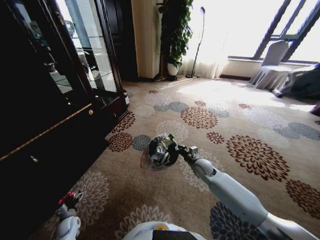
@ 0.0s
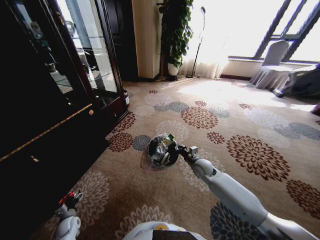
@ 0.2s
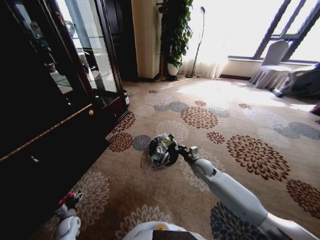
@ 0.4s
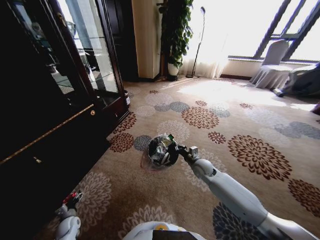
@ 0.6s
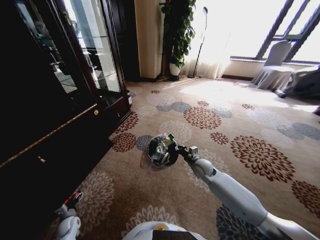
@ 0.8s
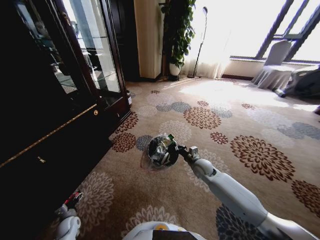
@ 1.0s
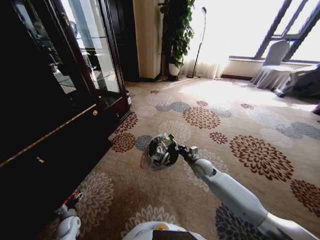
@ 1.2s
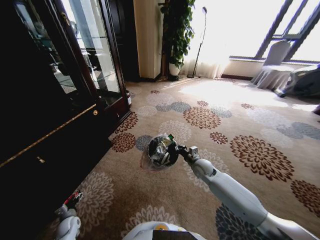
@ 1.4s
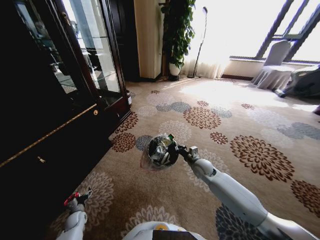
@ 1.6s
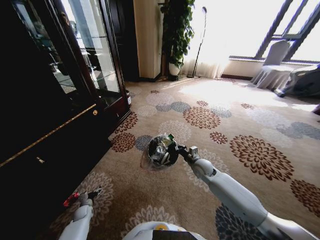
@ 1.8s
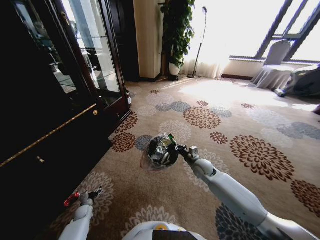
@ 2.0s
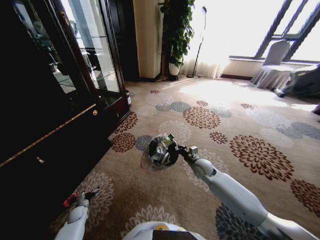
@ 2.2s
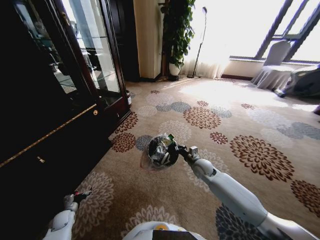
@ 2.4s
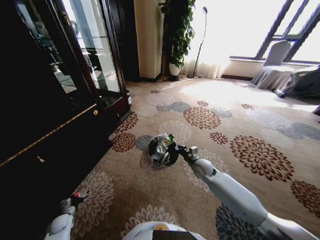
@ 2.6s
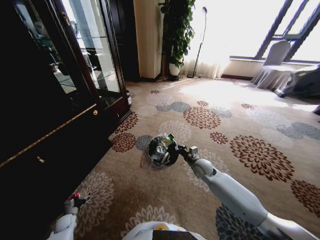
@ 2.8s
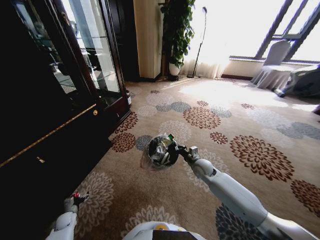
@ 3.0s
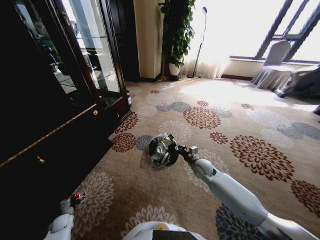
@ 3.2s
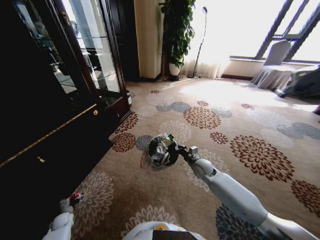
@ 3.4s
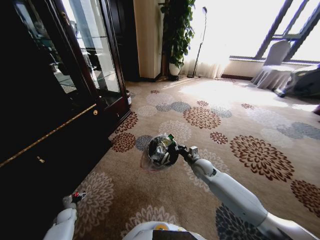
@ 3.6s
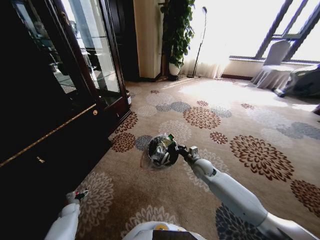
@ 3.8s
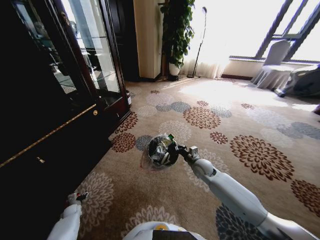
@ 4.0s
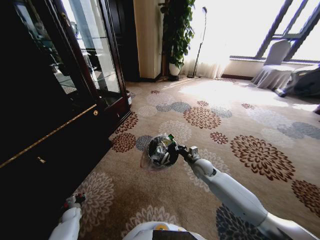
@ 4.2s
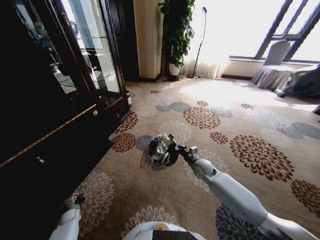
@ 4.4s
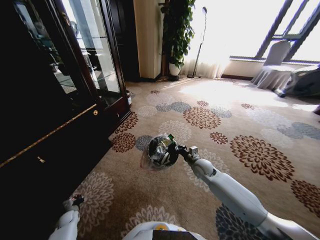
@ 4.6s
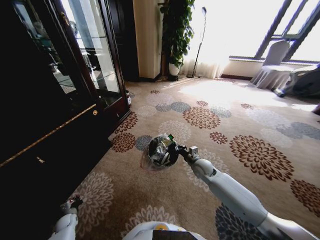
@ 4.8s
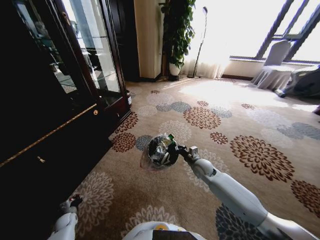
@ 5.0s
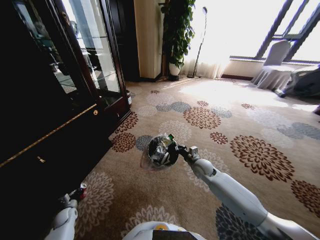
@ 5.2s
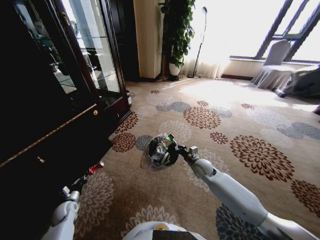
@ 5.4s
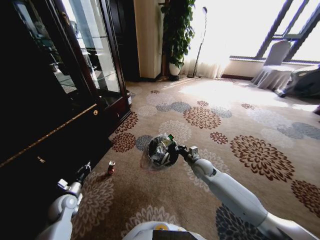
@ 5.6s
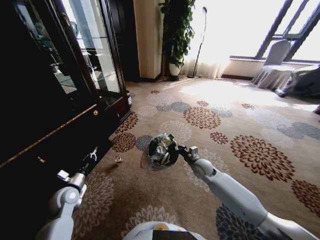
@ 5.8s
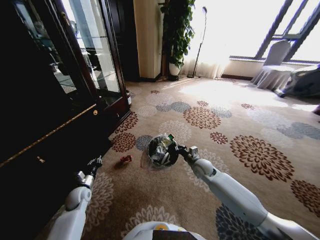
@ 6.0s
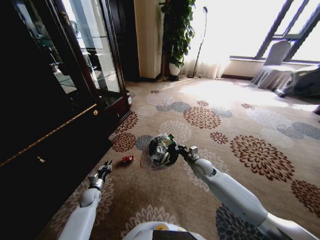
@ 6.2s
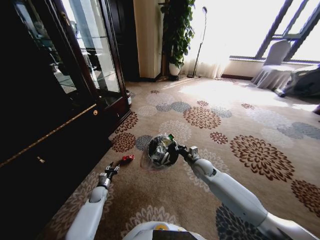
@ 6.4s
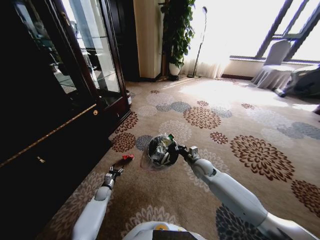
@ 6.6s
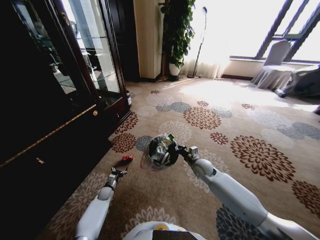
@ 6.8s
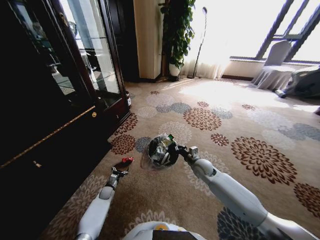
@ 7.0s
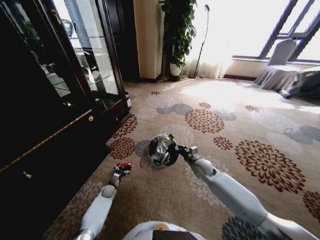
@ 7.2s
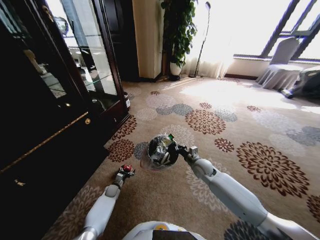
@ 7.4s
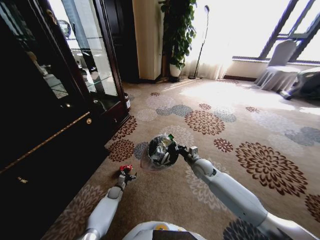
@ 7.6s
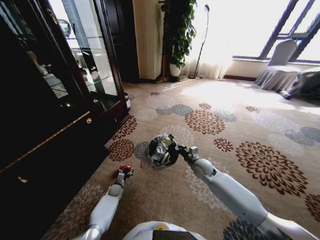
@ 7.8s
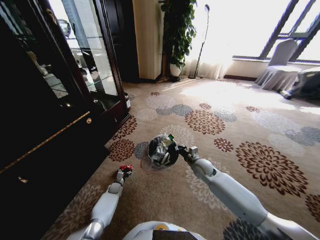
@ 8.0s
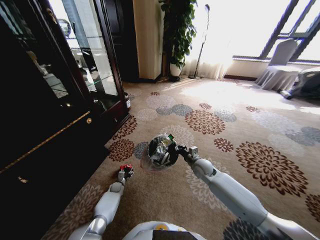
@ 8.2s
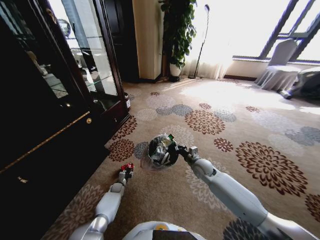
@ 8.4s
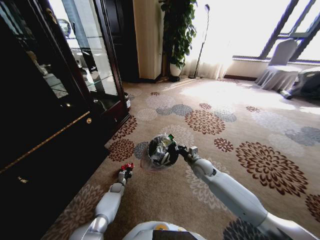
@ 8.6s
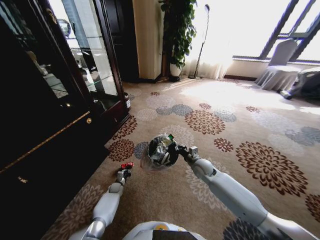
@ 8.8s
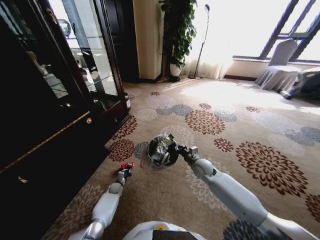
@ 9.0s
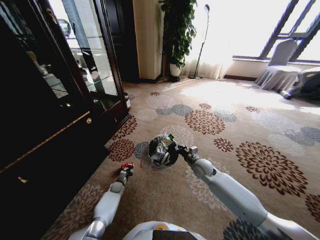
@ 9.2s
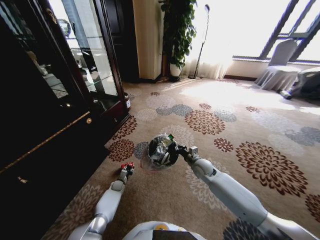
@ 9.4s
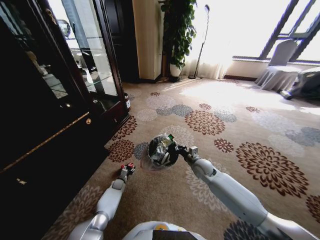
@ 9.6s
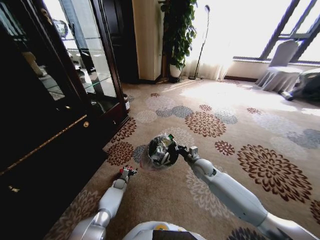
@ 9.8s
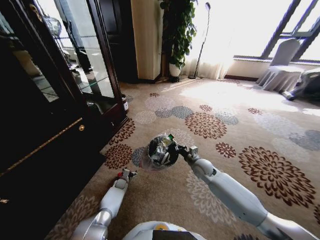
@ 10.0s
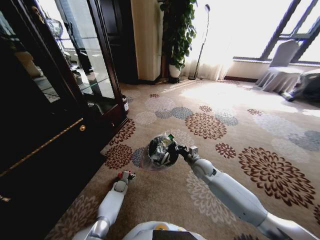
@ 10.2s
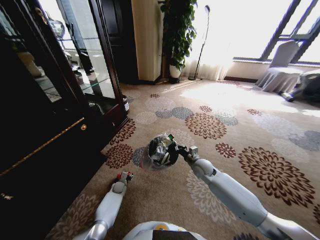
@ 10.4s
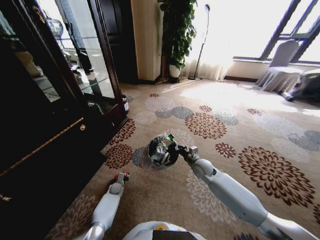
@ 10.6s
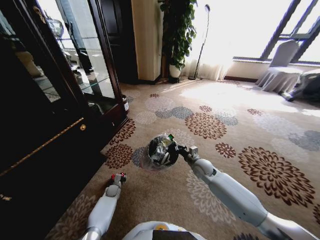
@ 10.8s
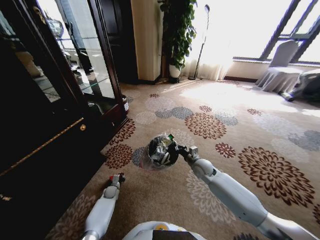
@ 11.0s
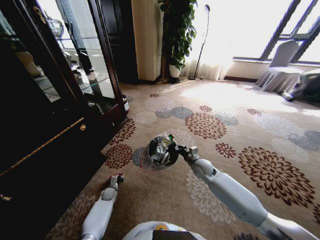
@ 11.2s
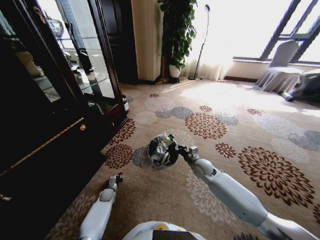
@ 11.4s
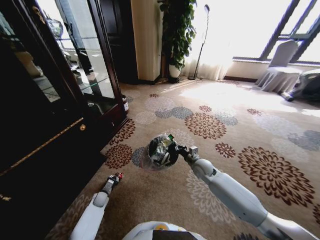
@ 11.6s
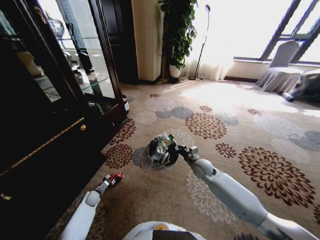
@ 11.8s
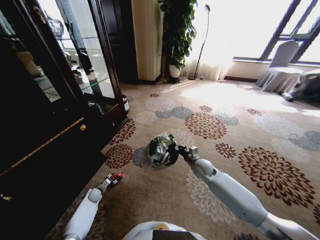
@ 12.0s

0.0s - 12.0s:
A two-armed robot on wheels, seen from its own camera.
Task of the whole recording: Pick up the trash from the ground and place it into the trash bin.
0.0s - 1.6s: The grippers move only a little.
3.0s - 4.4s: The left gripper closes up.
4.4s - 6.0s: The left gripper shifts some 20 cm upward and to the right.
6.0s - 7.6s: The left gripper travels downward and to the right by roughly 20 cm, and opens up.
7.6s - 9.0s: The left gripper closes up.
9.0s - 10.4s: The left gripper opens up.
10.4s - 12.0s: The left gripper shifts approximately 15 cm to the left, and closes and opens again.

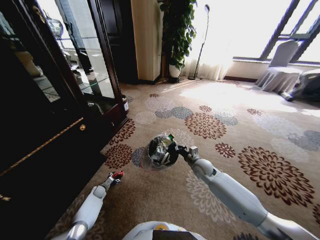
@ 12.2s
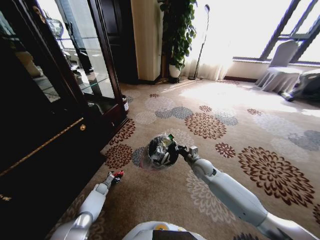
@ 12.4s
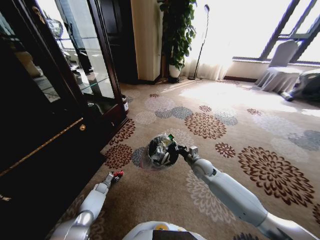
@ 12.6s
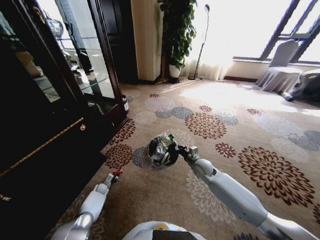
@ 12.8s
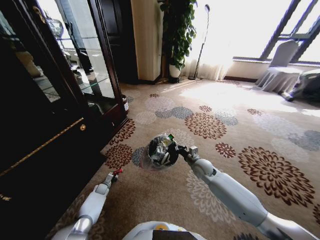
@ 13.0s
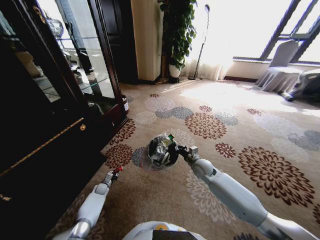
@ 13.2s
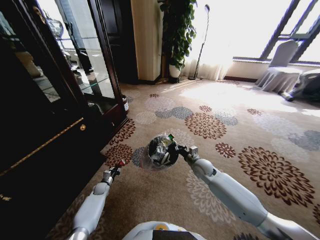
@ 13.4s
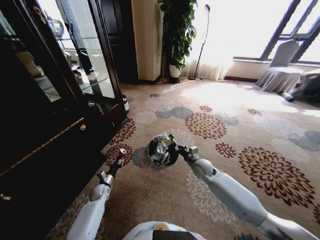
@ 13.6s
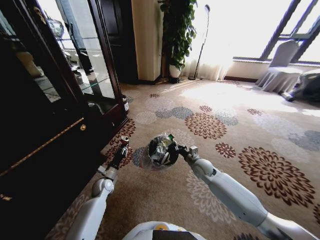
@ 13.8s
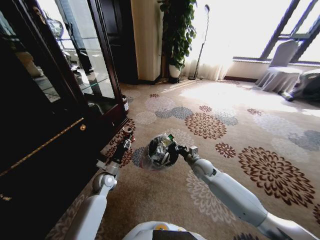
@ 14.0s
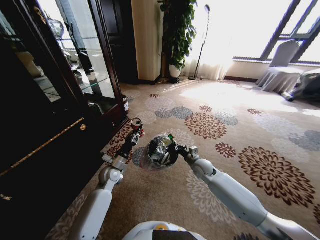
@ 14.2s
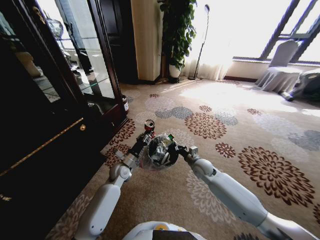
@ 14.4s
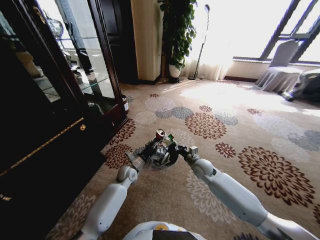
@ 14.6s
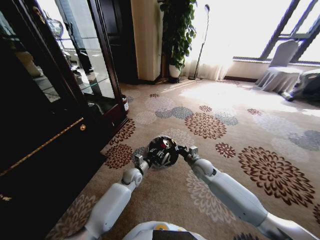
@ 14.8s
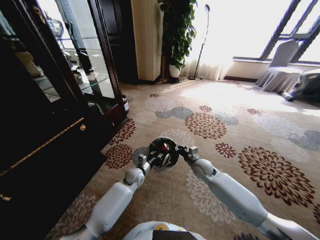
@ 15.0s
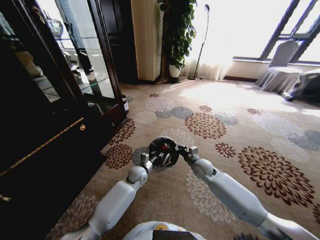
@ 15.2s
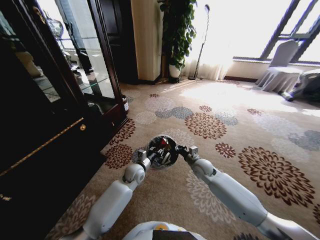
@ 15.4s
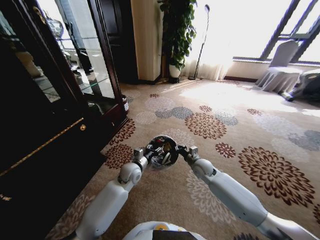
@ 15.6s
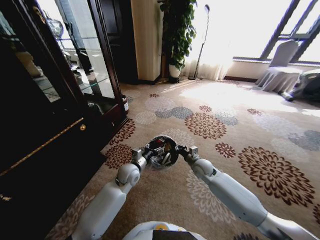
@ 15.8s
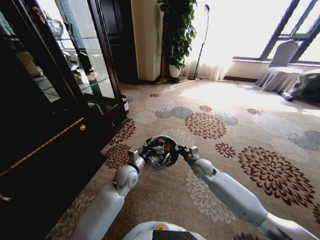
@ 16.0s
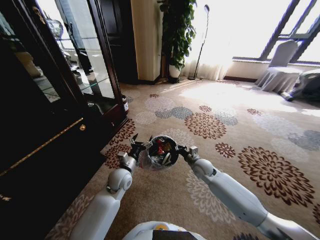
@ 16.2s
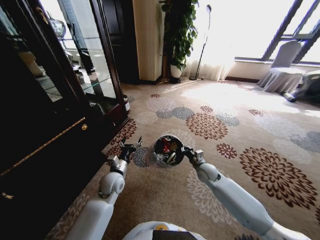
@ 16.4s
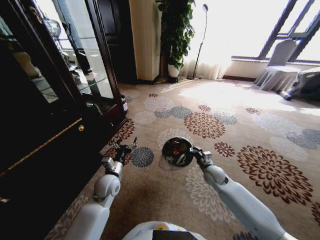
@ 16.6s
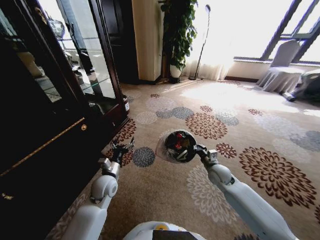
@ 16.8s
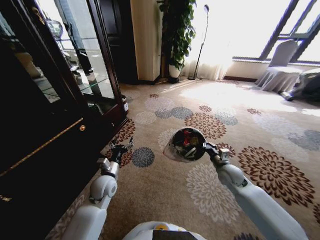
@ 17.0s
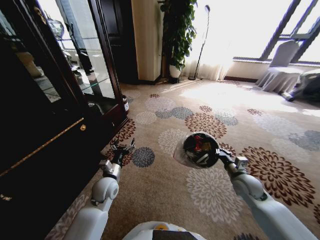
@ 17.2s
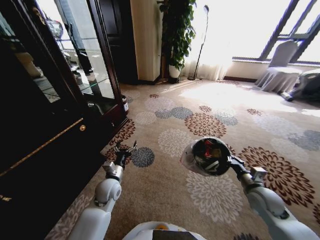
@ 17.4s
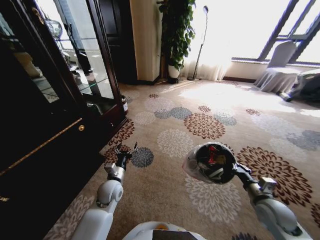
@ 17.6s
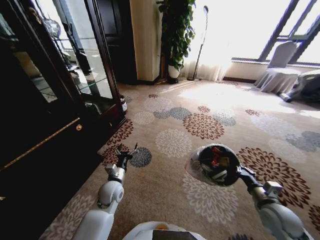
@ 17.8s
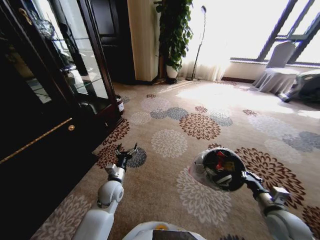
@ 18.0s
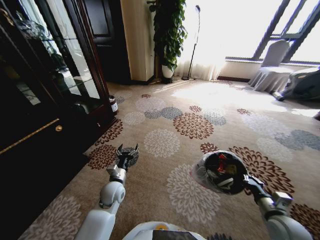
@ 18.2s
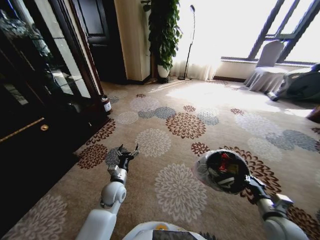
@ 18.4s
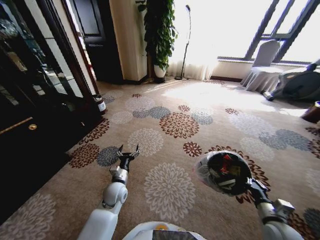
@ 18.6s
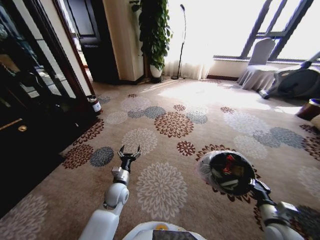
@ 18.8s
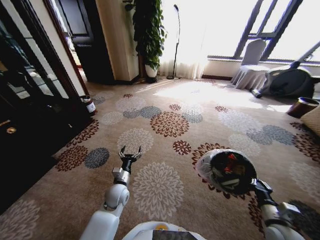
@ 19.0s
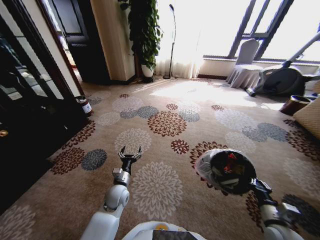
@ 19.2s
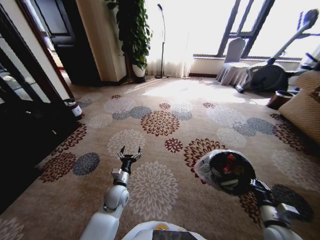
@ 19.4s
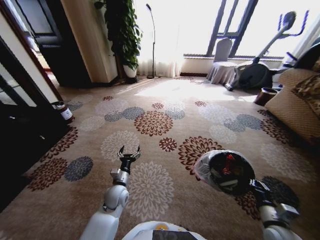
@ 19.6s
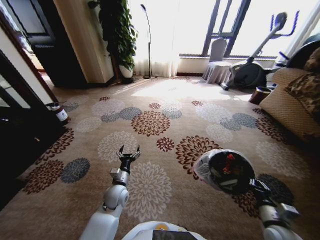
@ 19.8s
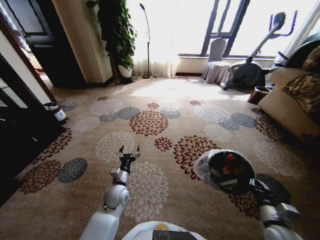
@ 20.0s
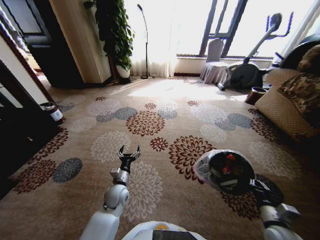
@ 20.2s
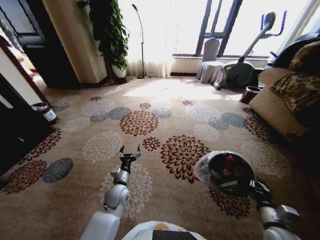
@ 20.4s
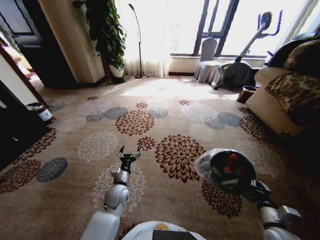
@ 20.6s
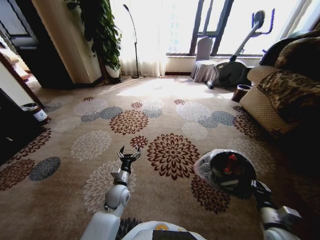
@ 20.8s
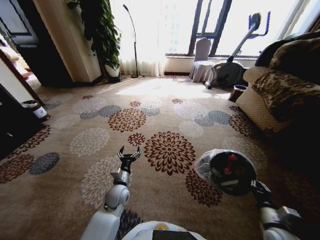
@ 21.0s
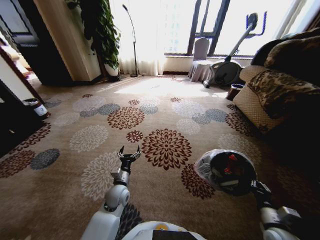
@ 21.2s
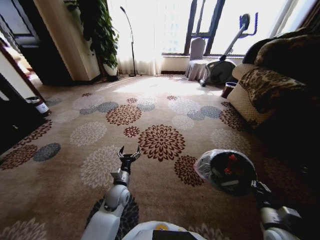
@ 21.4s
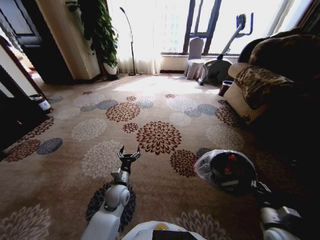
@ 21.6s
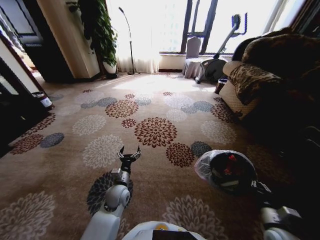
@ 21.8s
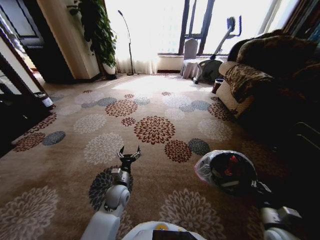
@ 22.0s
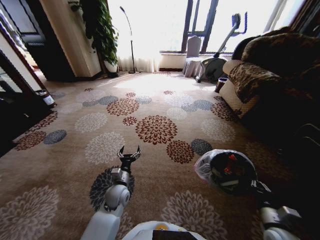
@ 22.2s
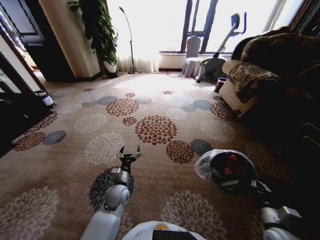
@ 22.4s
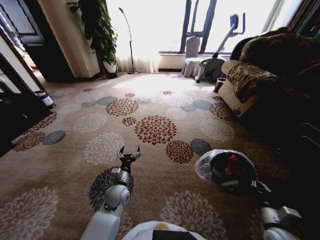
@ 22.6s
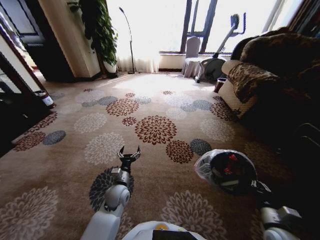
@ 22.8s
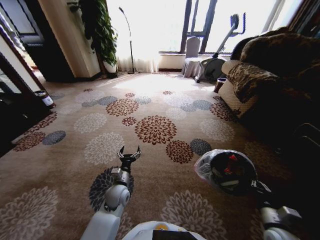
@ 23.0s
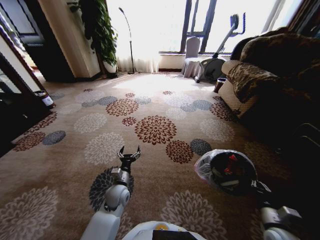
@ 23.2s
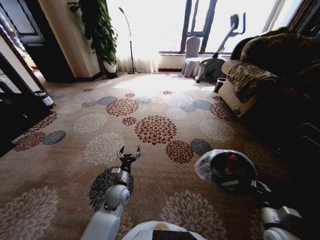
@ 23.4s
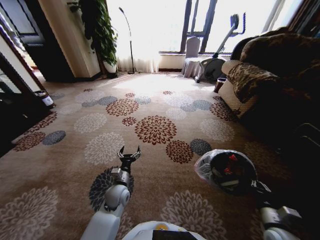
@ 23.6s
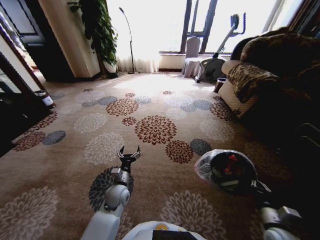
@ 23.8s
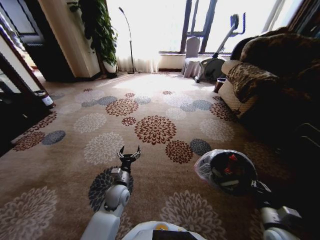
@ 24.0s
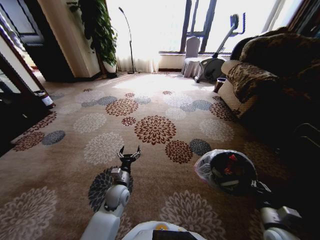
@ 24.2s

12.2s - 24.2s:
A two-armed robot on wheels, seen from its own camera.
Task of the whole recording: Pick up the trash from the ground and place it into the trash bin.
12.2s - 13.8s: The left gripper goes about 20 cm upward and to the right, and closes its fingers.
13.8s - 15.2s: The left gripper goes some 20 cm to the right.
15.2s - 16.6s: The left gripper moves to the left, backward and upward, about 15 cm, and opens up. The right gripper heads to the right, covering approximately 5 cm.
16.6s - 18.2s: The right gripper shifts some 25 cm backward and to the right.
22.6s - 24.2s: Both grippers stay about where they are.
